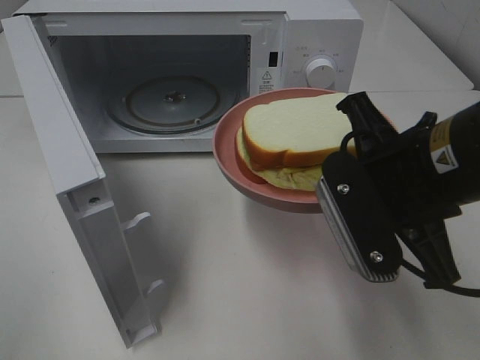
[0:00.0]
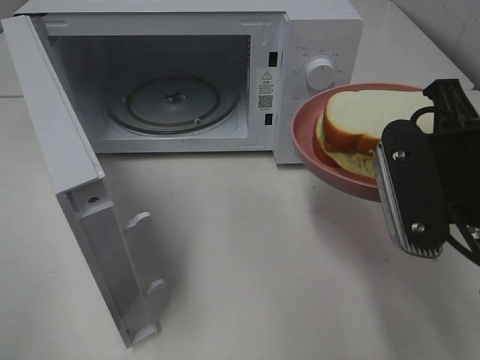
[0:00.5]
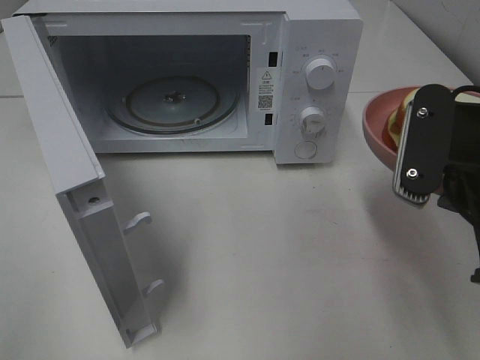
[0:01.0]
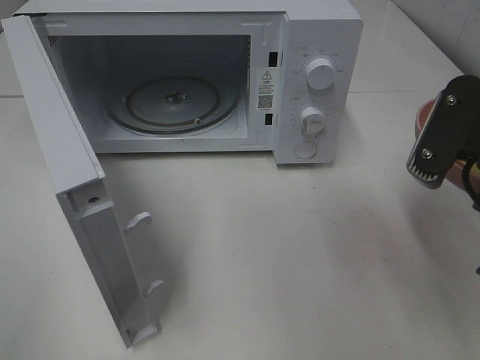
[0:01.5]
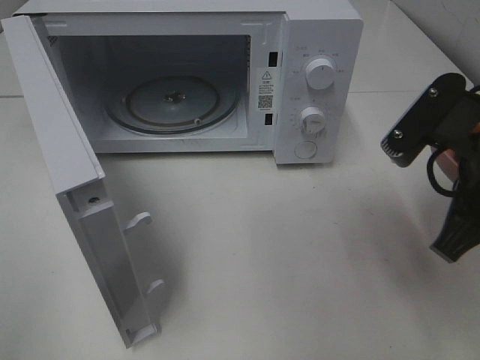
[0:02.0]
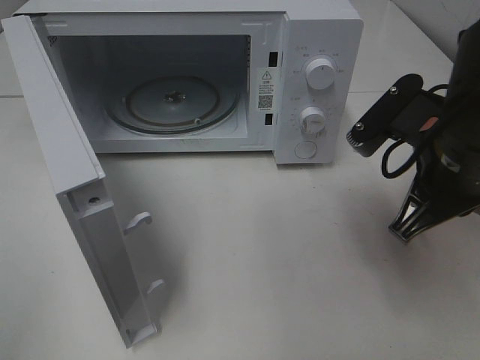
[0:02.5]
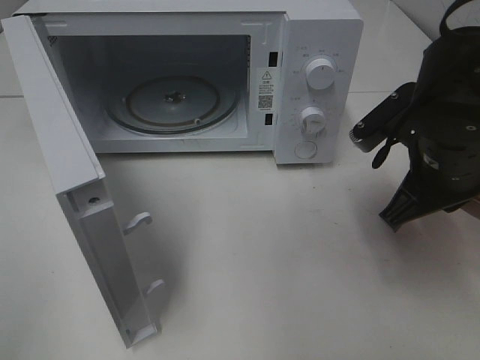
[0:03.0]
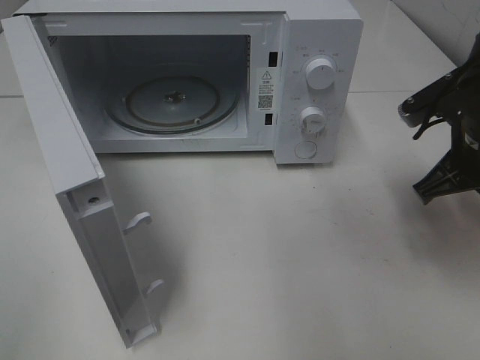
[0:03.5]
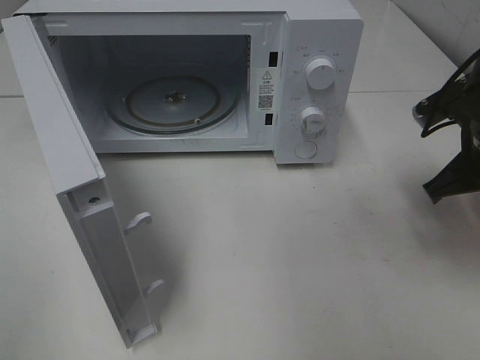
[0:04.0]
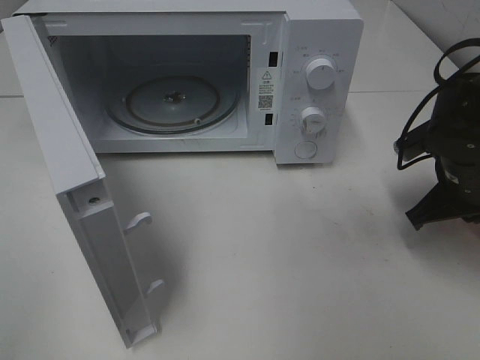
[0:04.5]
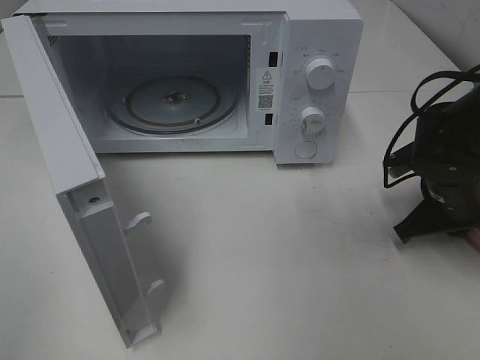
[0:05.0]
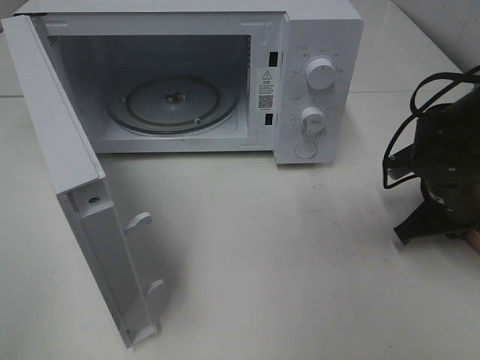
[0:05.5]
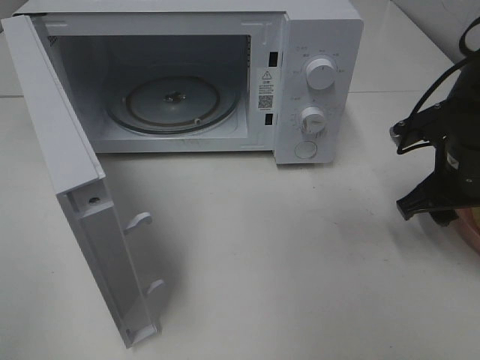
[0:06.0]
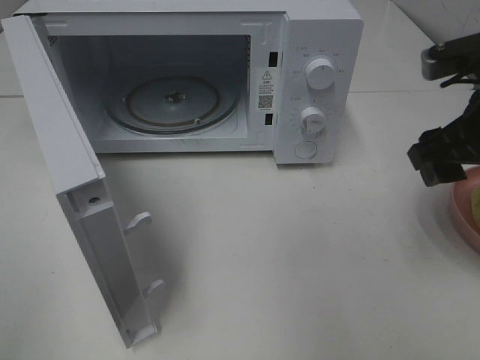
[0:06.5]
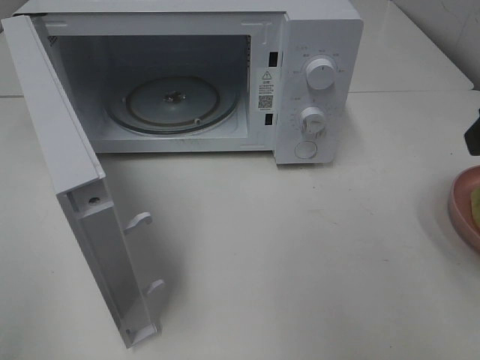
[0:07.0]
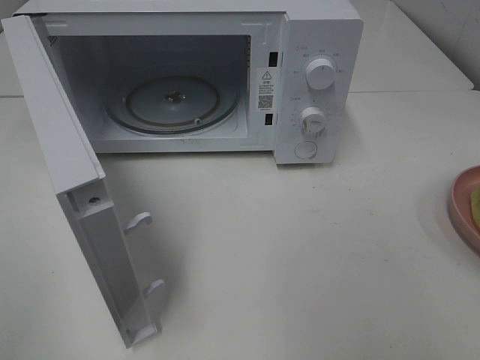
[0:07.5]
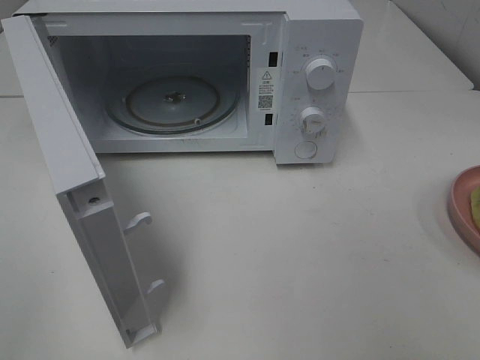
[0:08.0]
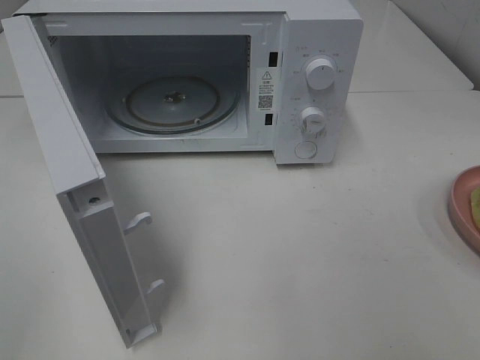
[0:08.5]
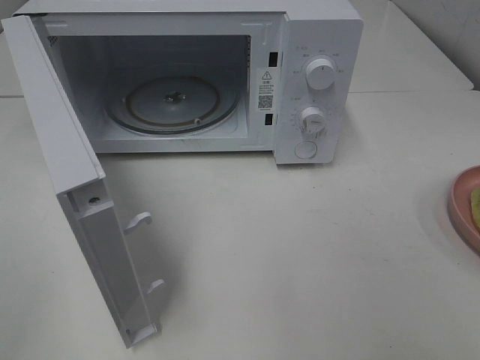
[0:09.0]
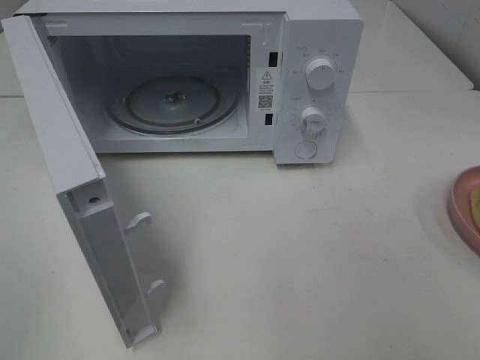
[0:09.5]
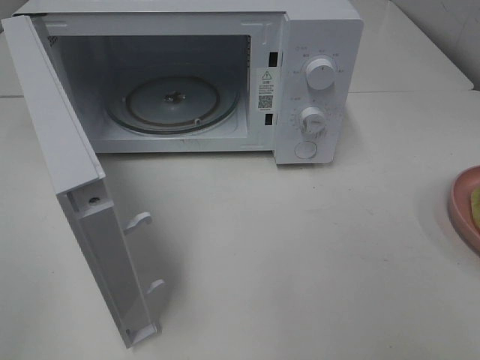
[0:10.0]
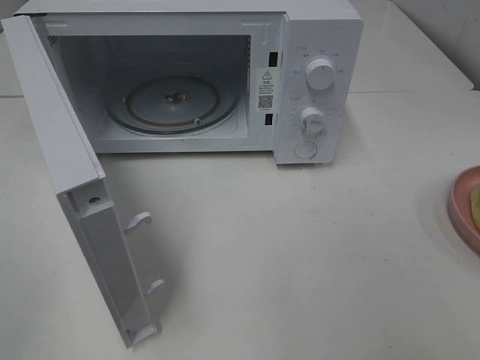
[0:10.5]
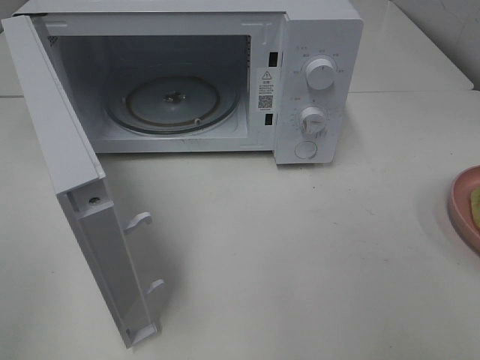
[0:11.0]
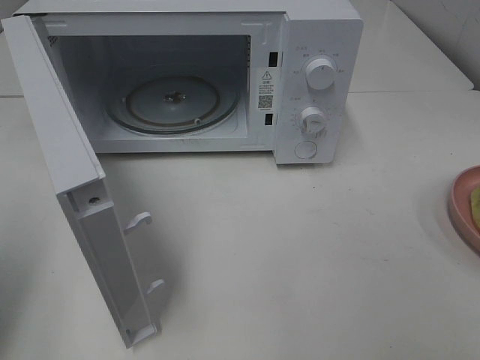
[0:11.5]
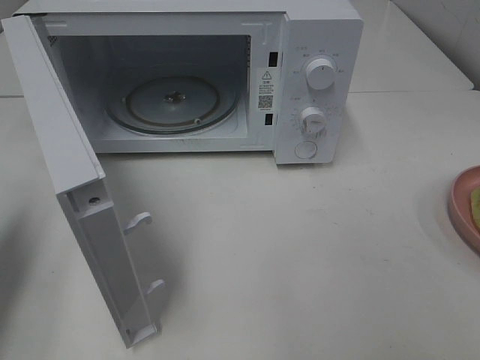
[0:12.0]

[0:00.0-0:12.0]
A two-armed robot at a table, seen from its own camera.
Task of the whole recording: Heat Sandwich.
Step, 0:00.0 to 0:05.5: Right hand: place the plate on the table.
0:00.0 to 0:02.0: The right gripper shifts roughly 5 cm to the right.
0:02.0 to 0:04.0: The right gripper is displaced forward, to the right and downward by some 10 cm.
0:04.0 to 0:06.0: The right gripper moves some 10 cm downward and comes back, and opens its fingers.
0:06.0 to 0:08.0: The right gripper is displaced backward and upward by approximately 30 cm.
0:10.0 to 0:12.0: The left gripper is displaced forward by roughly 20 cm, and closes.

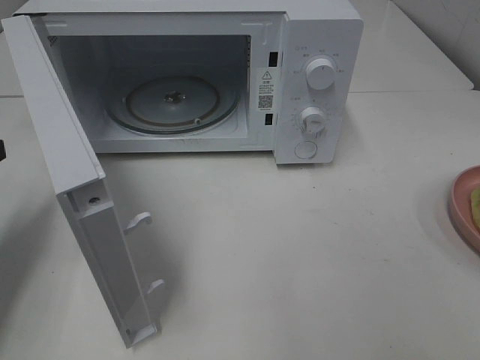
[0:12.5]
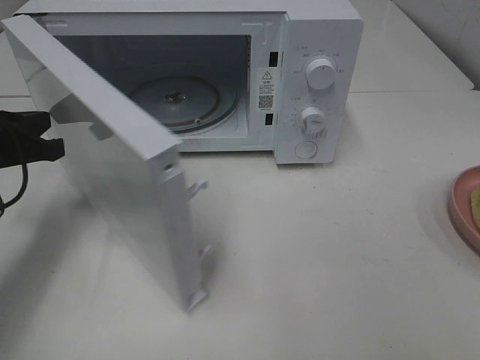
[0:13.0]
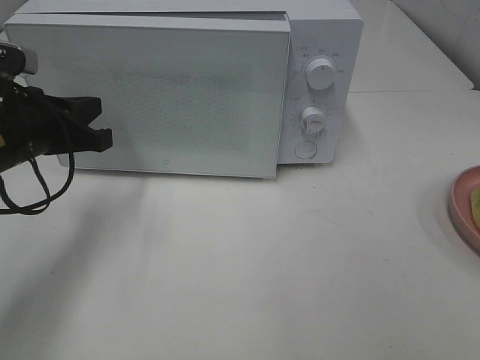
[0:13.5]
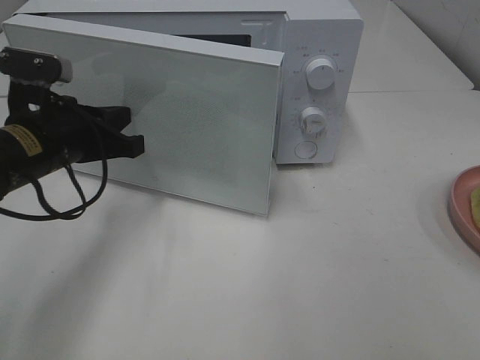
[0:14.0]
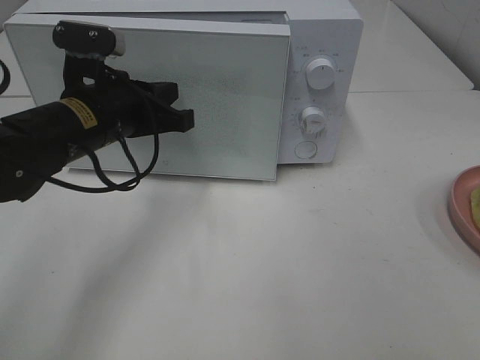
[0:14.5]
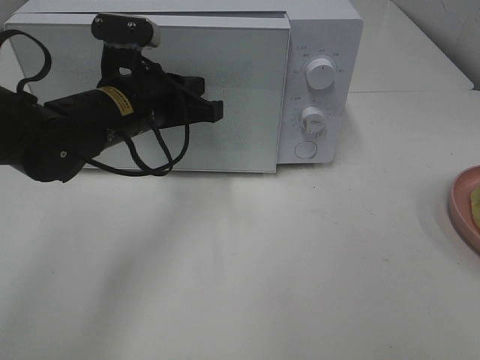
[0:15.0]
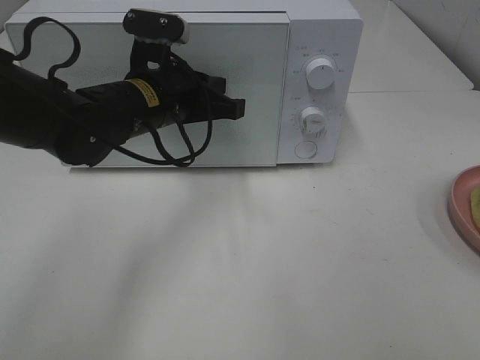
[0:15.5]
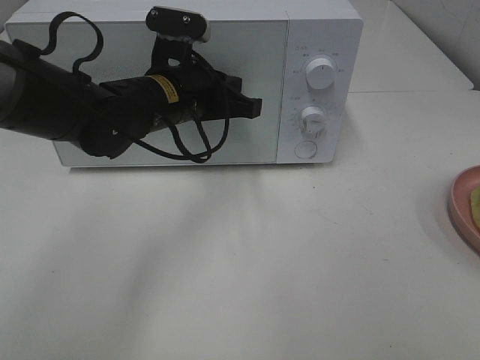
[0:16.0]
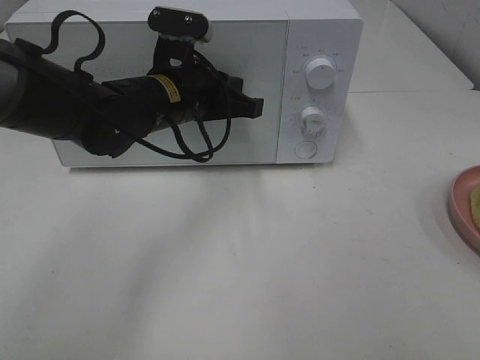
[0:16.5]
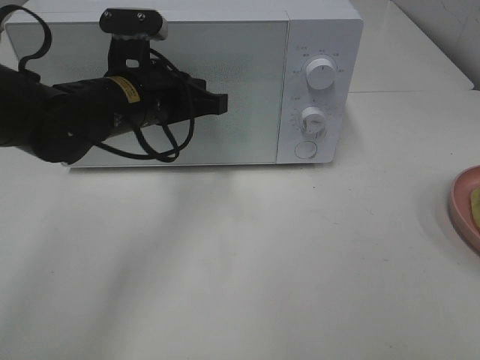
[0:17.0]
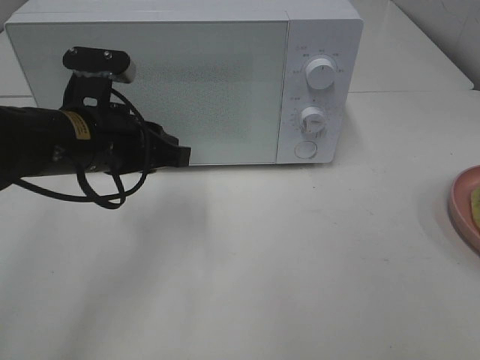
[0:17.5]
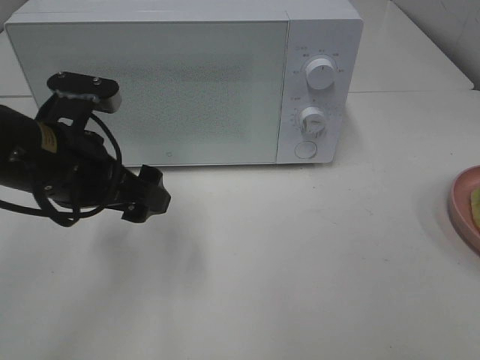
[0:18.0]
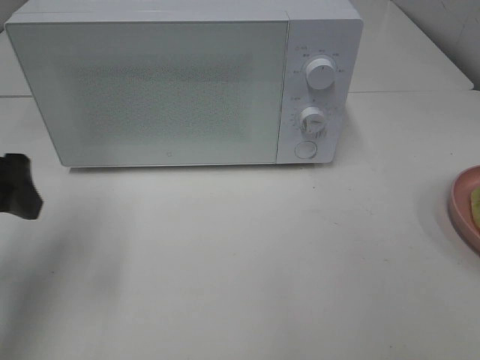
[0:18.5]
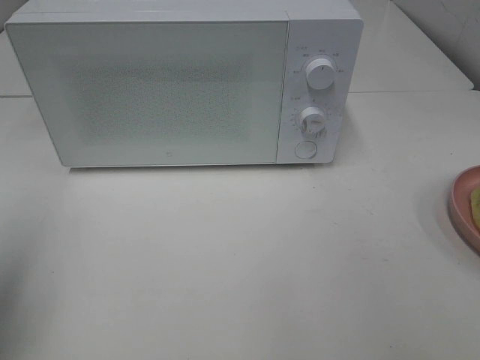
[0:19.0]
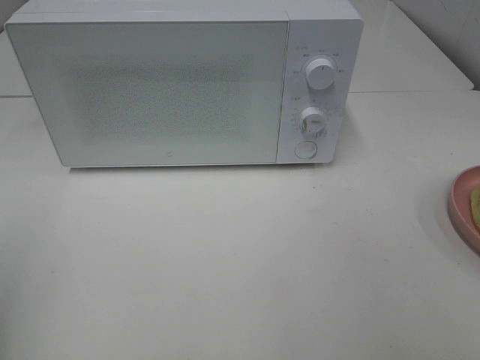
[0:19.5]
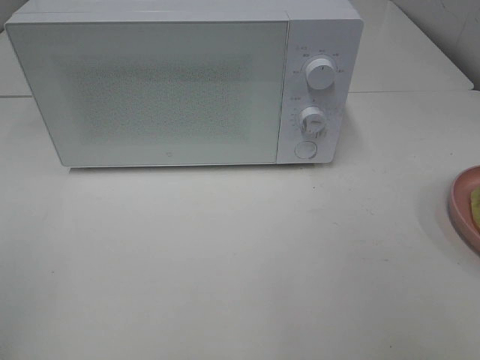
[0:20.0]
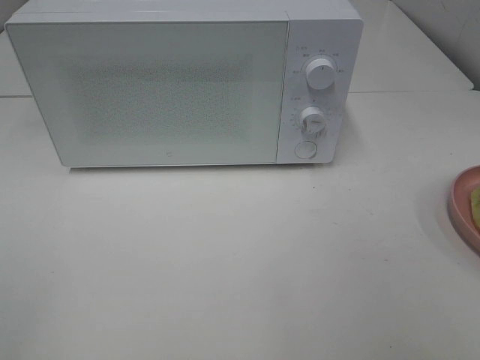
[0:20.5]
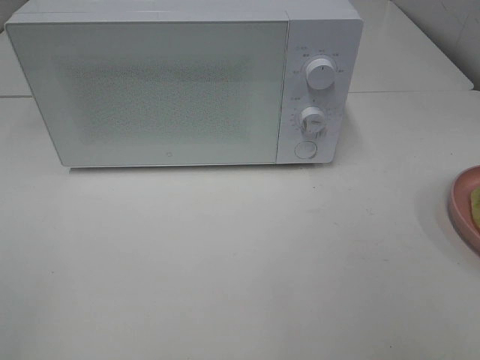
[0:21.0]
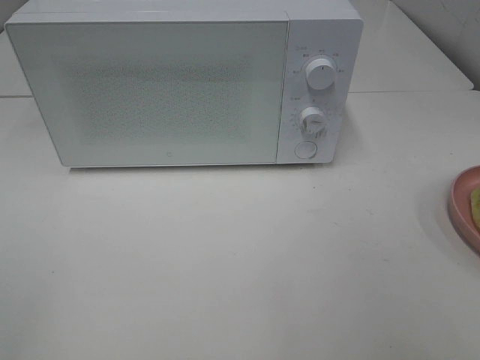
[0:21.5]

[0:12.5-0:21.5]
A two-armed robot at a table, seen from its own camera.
Task of the whole recording: Heat Sandwich.
Step, 0:12.5 to 0:17.0: Left hand: close the microwave door.
0:12.5 to 0:14.5: The left gripper goes about 15 cm to the right.
0:17.0 to 0:19.5: The left gripper goes approximately 35 cm backward and to the left, and opens.

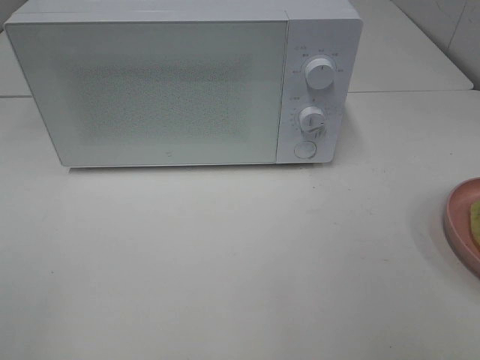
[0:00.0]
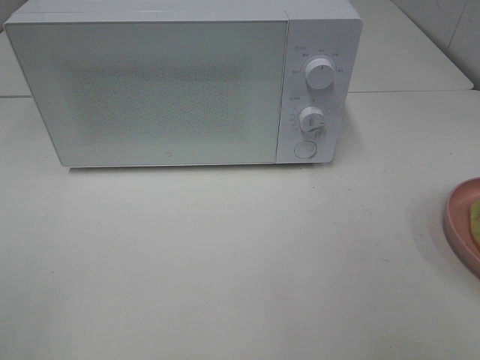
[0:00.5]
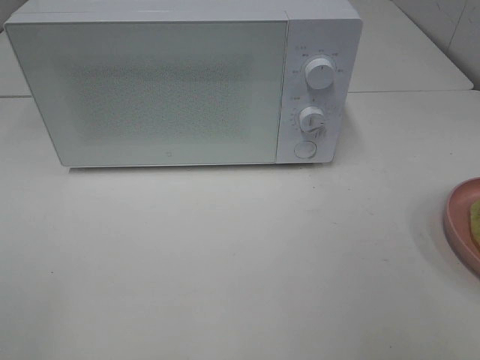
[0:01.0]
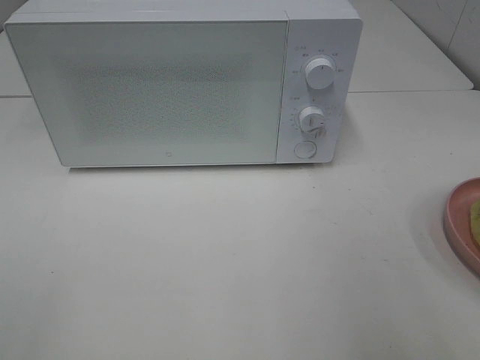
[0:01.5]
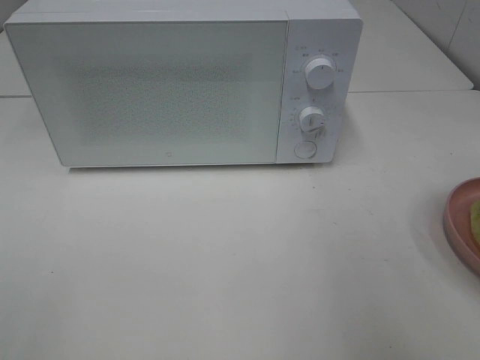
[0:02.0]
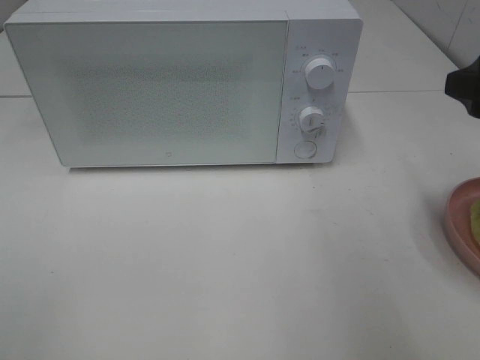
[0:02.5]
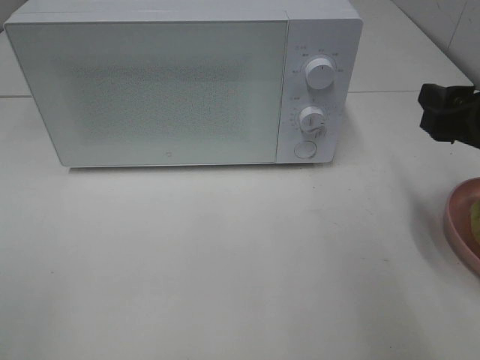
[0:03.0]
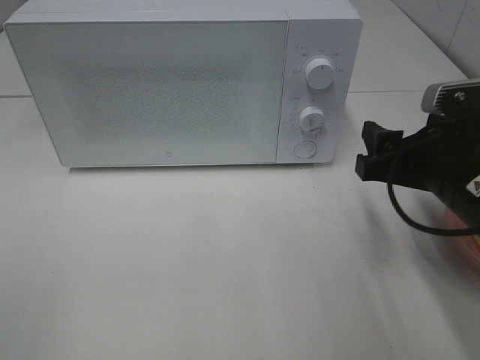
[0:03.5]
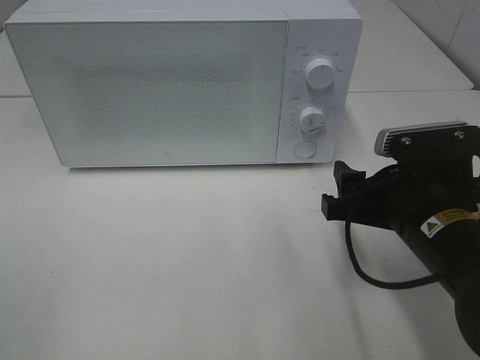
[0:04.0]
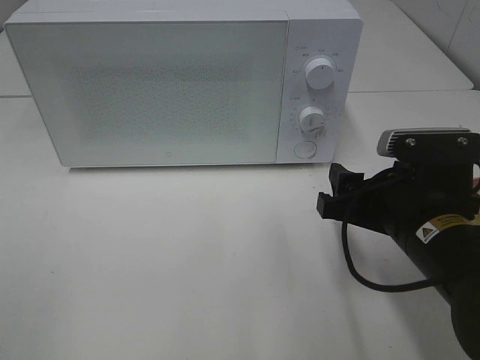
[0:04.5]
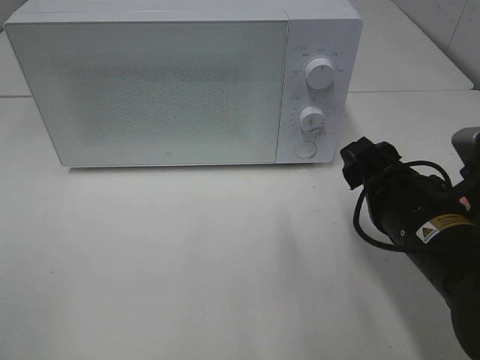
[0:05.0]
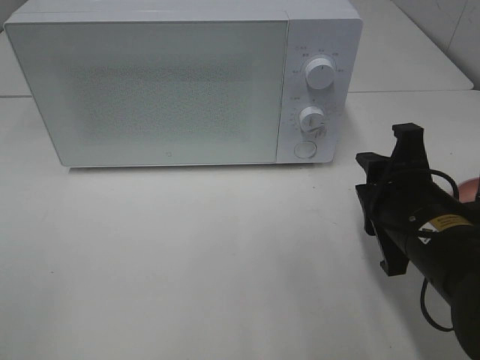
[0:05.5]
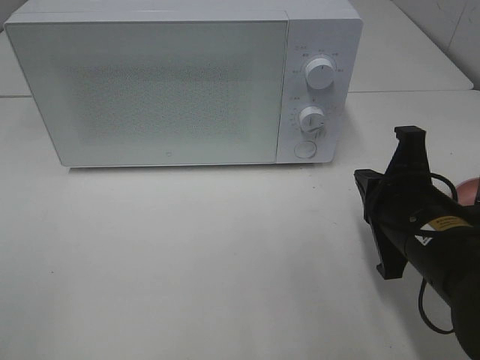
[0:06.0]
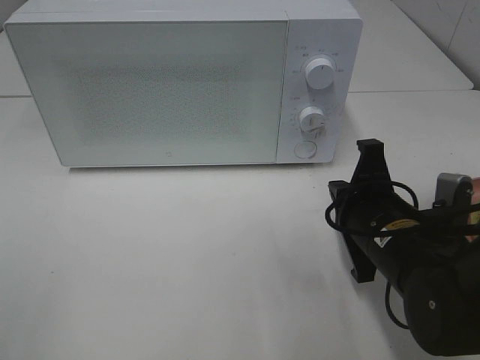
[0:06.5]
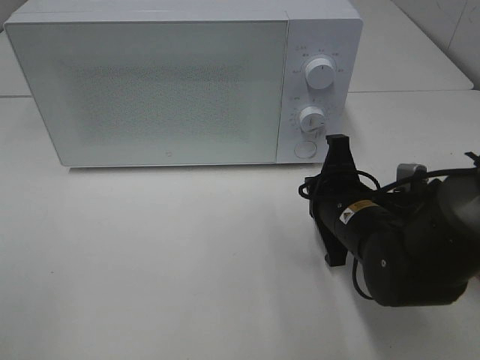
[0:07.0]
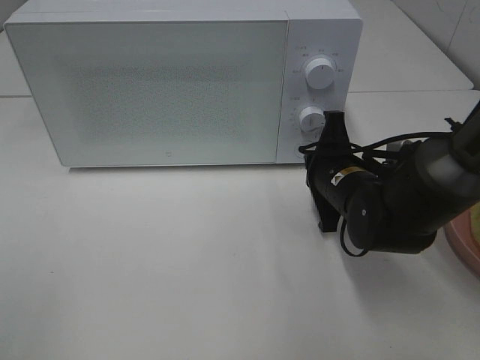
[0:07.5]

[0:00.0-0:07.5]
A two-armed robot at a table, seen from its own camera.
Task of the whole recording: Heat Sandwich.
0:02.0 to 0:04.0: The right gripper goes approximately 20 cm downward and to the left.
0:04.0 to 0:05.5: The right gripper closes.
0:05.5 to 0:07.5: The right gripper shifts some 10 cm forward and downward, and closes up.
